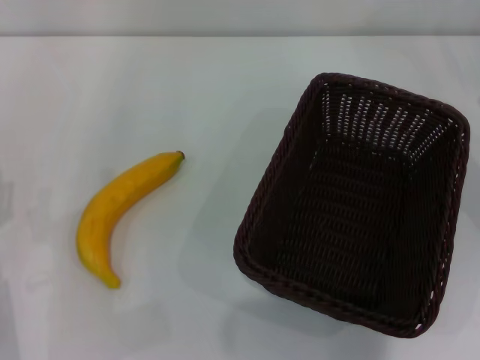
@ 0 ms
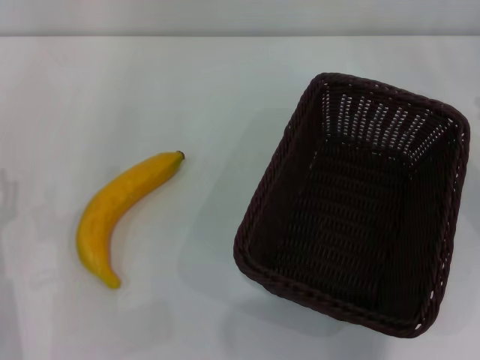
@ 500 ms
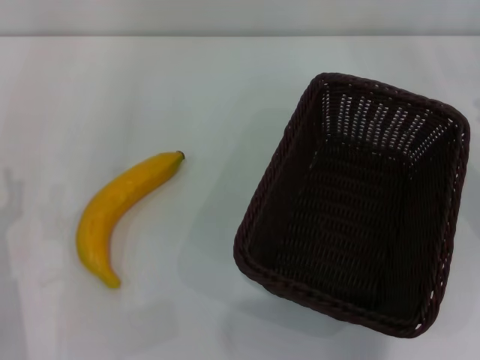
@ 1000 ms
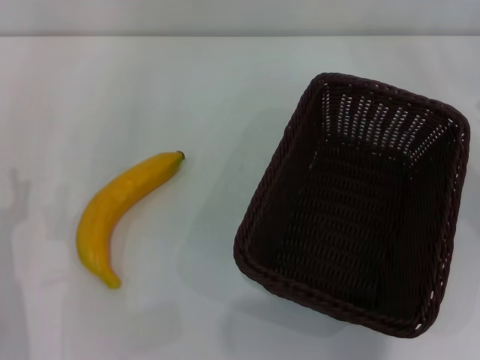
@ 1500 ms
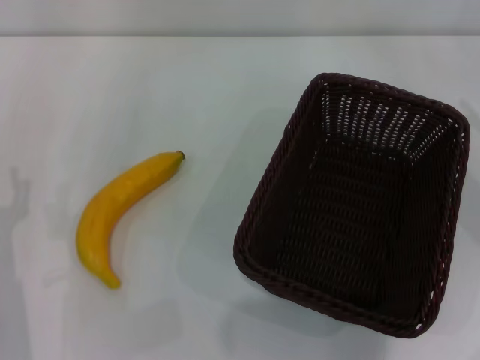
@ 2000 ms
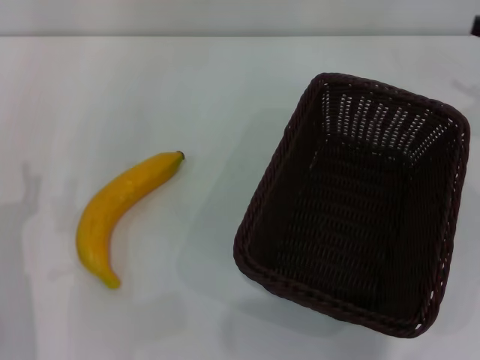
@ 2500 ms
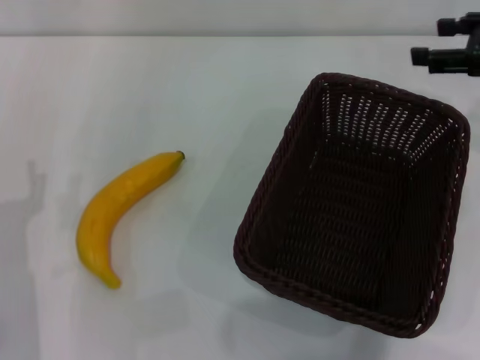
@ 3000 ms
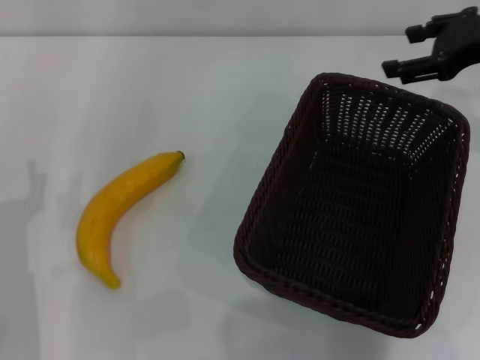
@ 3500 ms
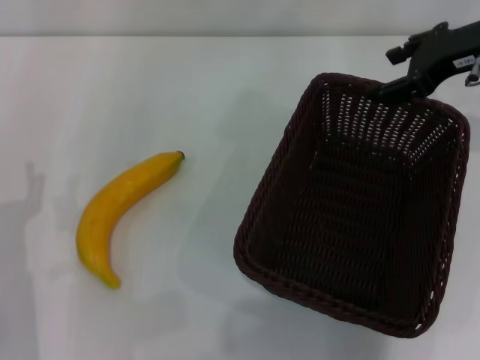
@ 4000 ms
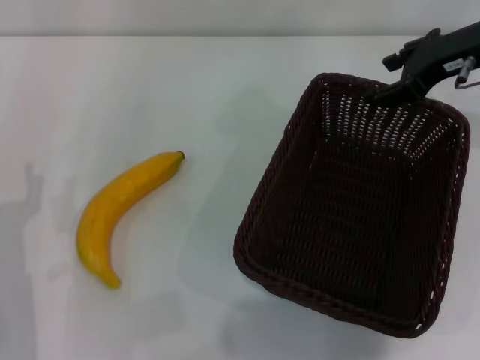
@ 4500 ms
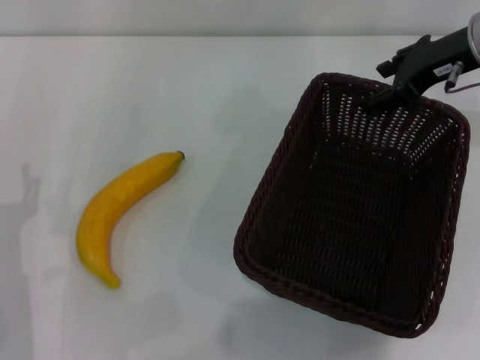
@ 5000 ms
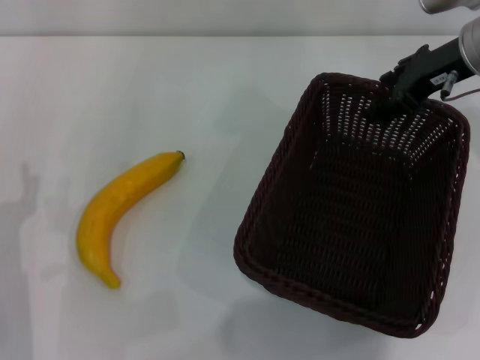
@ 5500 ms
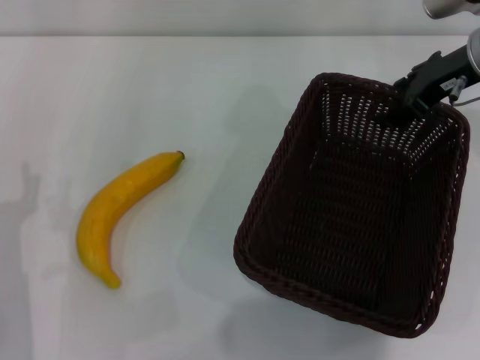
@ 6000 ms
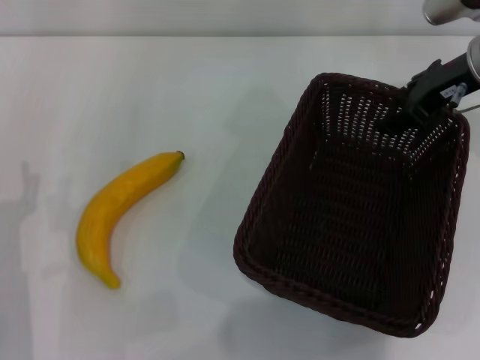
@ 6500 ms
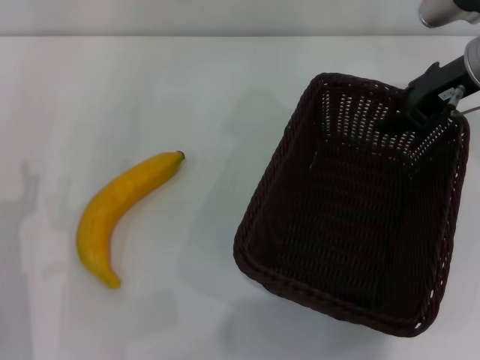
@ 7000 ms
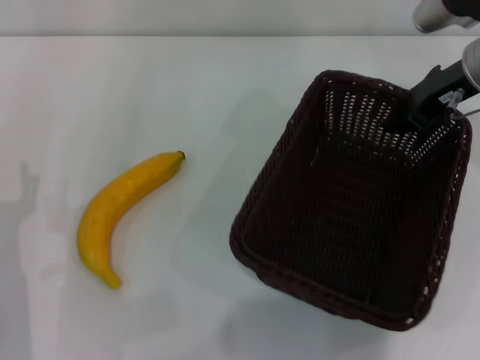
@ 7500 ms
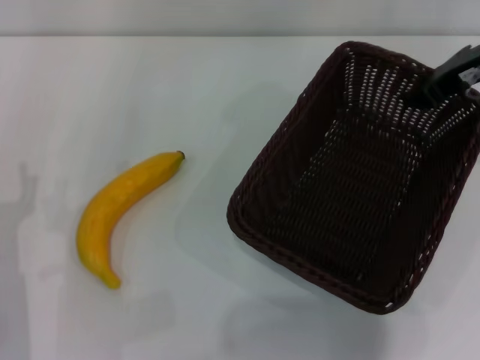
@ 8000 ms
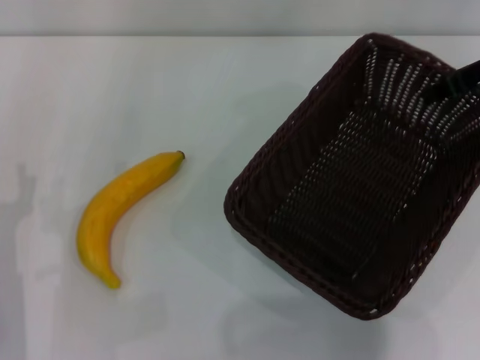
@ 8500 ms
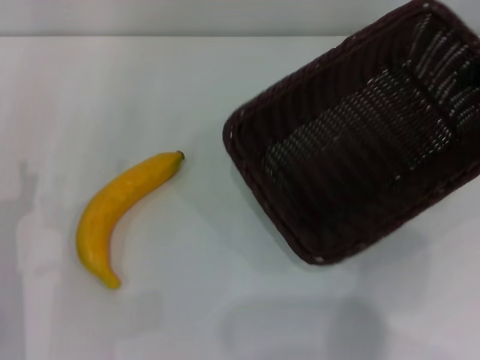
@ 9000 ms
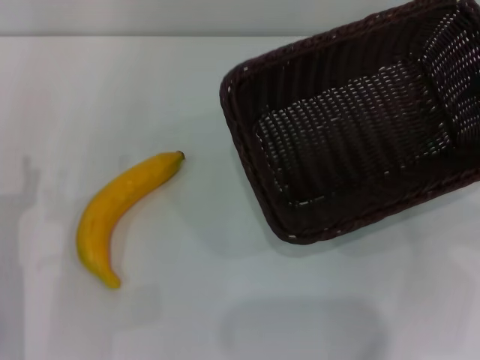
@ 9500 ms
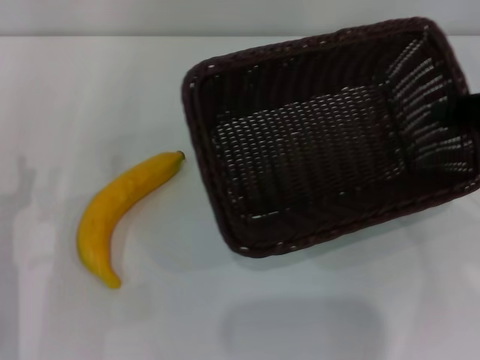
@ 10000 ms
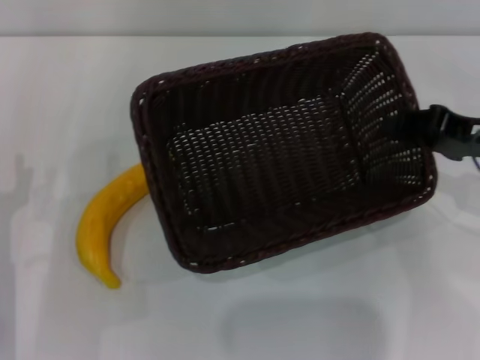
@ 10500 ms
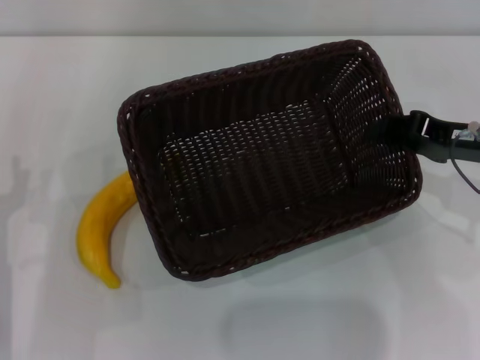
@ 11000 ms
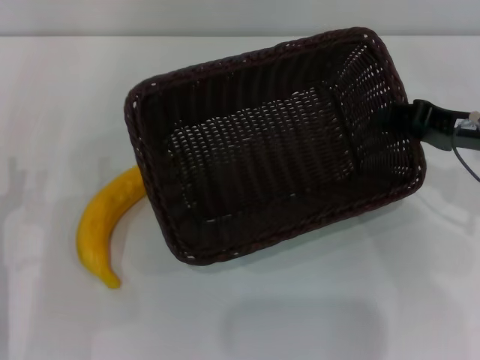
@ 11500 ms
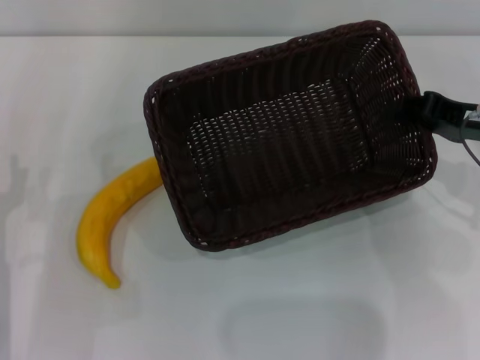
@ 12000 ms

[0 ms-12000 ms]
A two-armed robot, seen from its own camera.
Step, 0 ms to 8500 ms: Pick up the dark basket with the right gripper.
2000 ms to 4000 ms: The right gripper is displaced to the left, forward and upward by roughly 20 cm.
4000 ms to 6000 ms: There are only small adjustments of the grippers.
6000 ms to 8000 ms: The right gripper closes.
8000 ms to 10000 ms: The right gripper is displaced backward and to the right by about 10 cm.
10000 ms to 12000 ms: The right gripper is displaced to the left by about 5 cm.

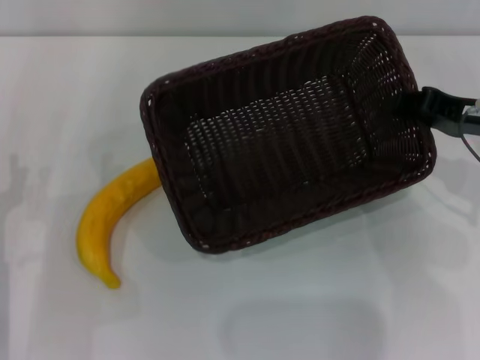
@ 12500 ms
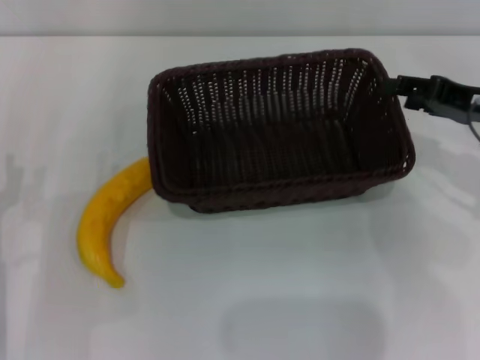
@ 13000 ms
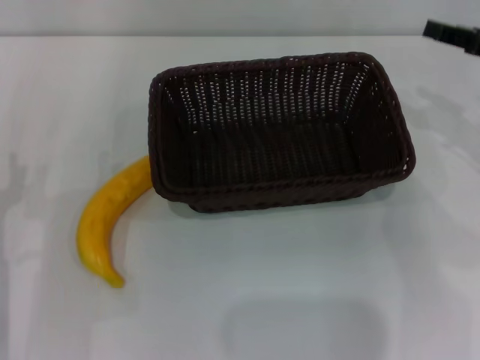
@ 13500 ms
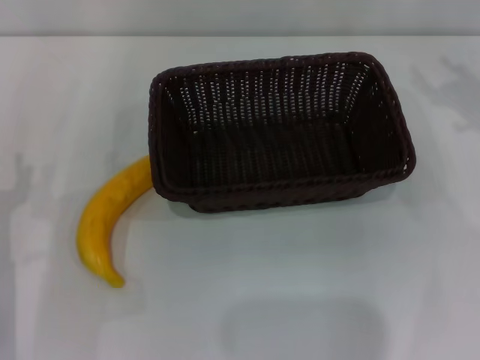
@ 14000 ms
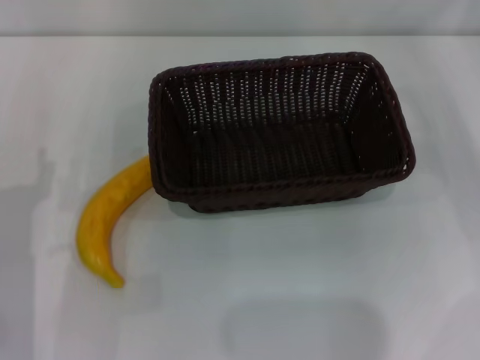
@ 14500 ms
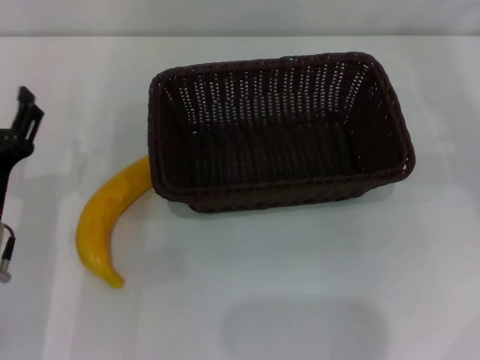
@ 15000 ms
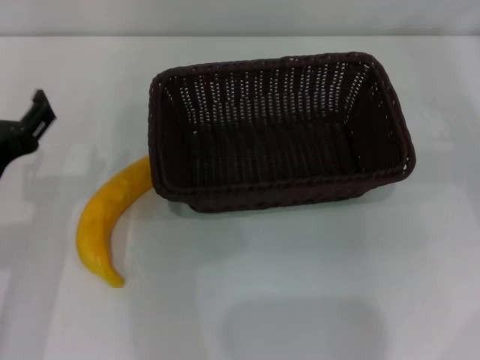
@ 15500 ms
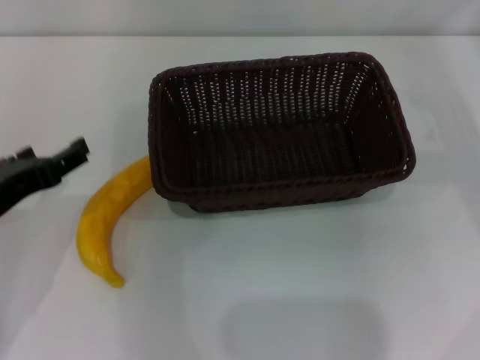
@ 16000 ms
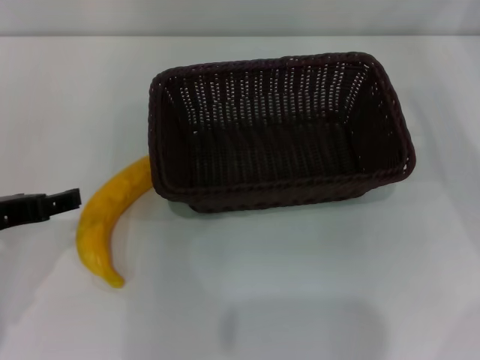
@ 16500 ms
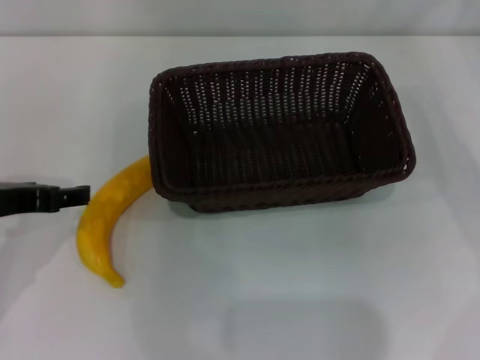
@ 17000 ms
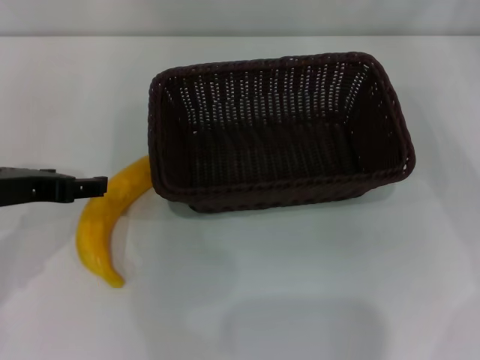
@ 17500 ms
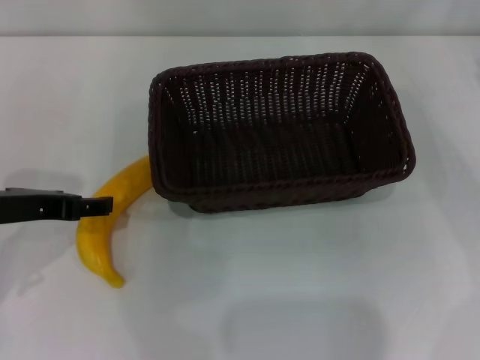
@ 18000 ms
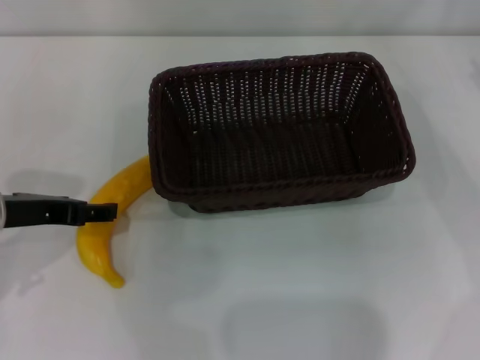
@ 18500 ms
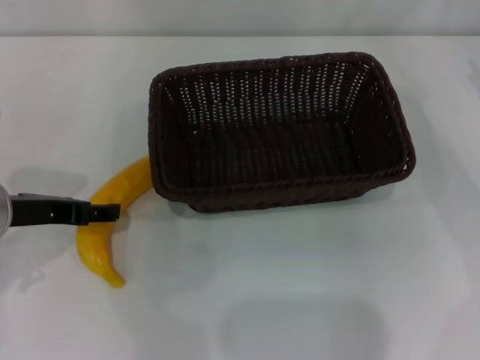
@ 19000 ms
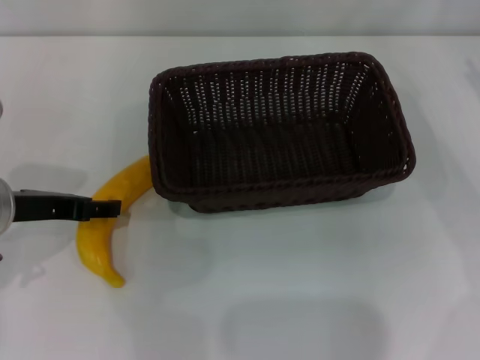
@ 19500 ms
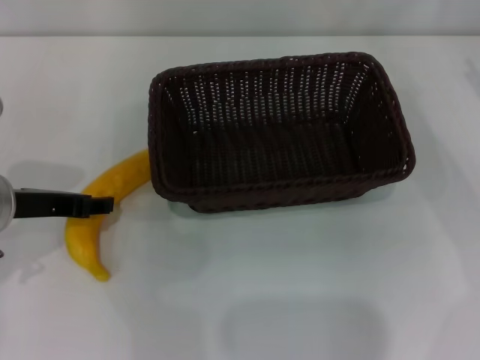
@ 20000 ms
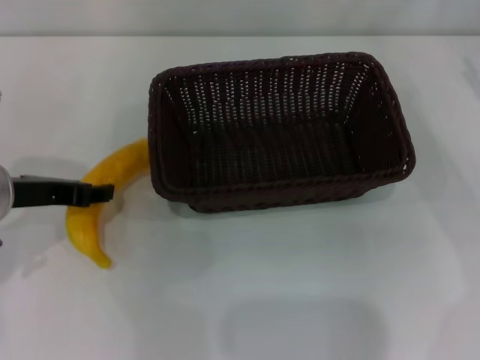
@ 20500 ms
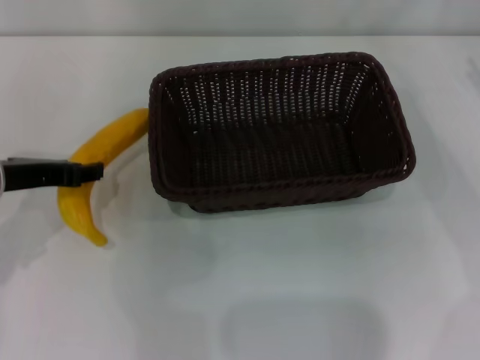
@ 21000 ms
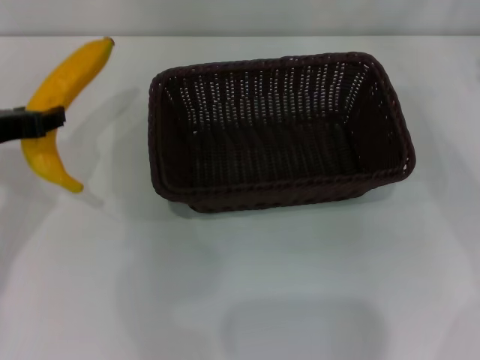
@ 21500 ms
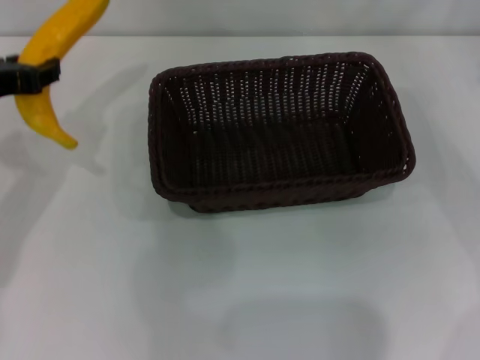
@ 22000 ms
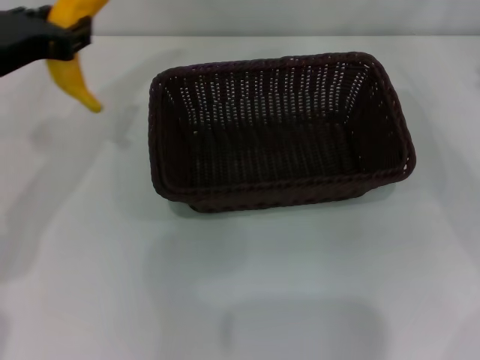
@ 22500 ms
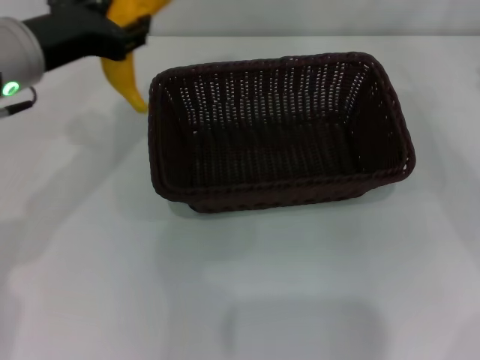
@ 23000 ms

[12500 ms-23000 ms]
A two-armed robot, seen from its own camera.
Step, 14000 ms to 21000 ms: Pick up the banana with the left gripper.
12500 ms to 14500 ms: The right gripper is displaced to the right by about 10 cm, and opens its fingers.
14500 ms to 16500 ms: The left gripper moves upward, about 10 cm.
16500 ms to 19000 ms: The left gripper goes approximately 5 cm forward.
19000 ms to 21000 ms: The left gripper closes its fingers.
21000 ms to 23000 ms: The left gripper goes some 5 cm upward.

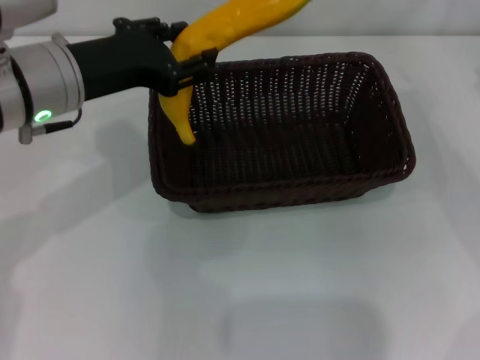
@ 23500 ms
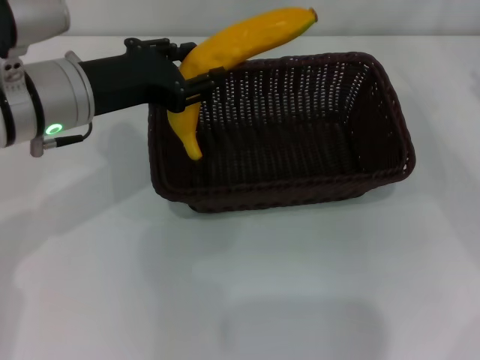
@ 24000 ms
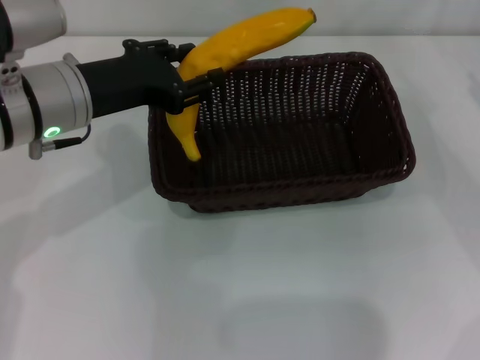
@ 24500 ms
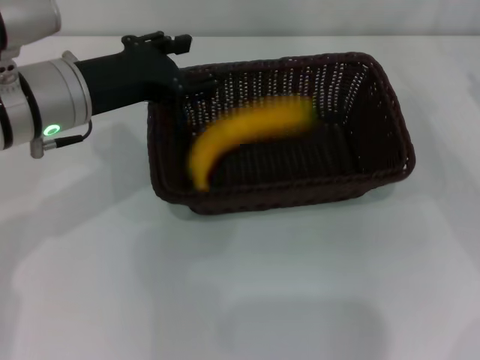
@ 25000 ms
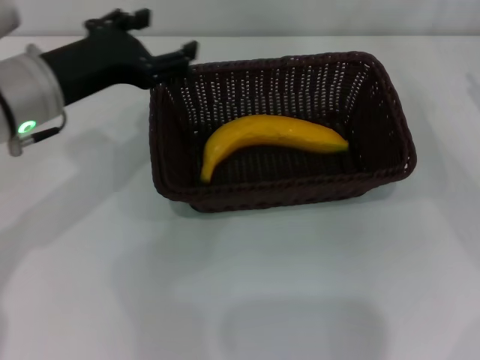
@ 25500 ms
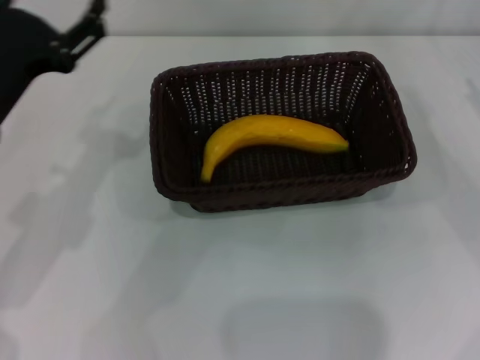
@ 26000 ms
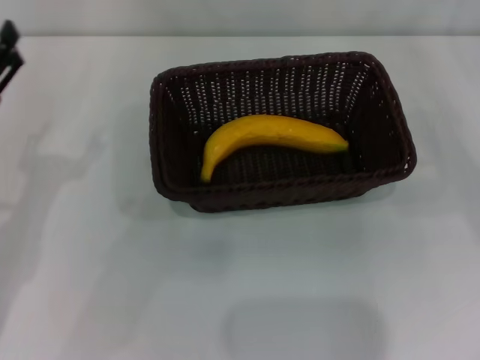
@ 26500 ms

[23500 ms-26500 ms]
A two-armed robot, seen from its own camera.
23500 ms to 25000 ms: There are only small adjustments of the grippers.
25000 ms to 26500 ms: The left gripper moves backward and to the left, some 15 cm, and opens its fingers.
